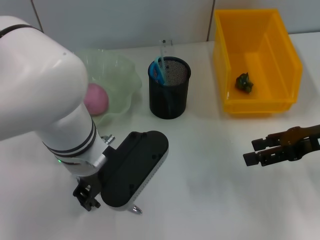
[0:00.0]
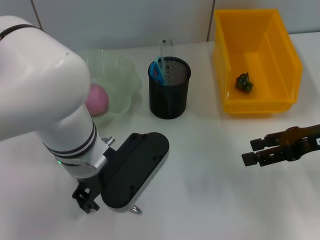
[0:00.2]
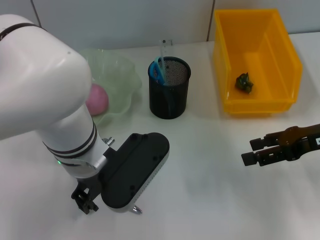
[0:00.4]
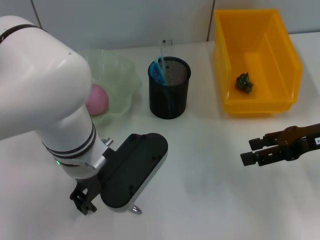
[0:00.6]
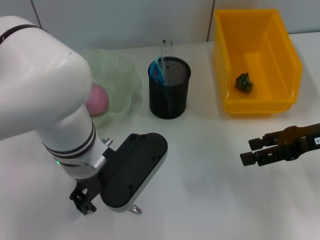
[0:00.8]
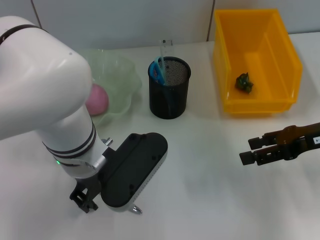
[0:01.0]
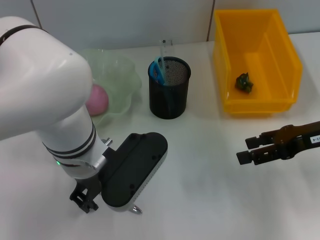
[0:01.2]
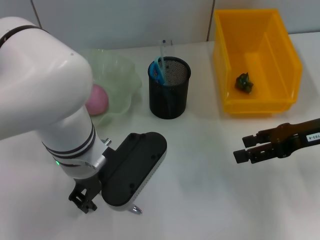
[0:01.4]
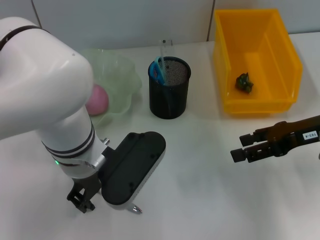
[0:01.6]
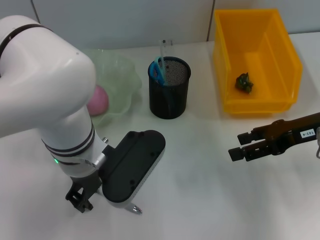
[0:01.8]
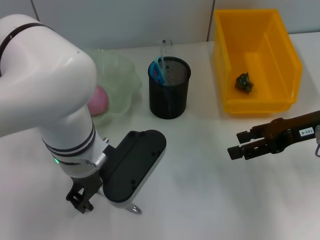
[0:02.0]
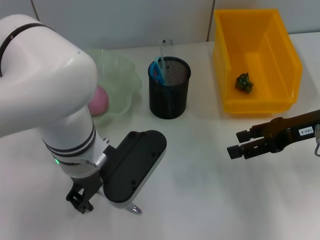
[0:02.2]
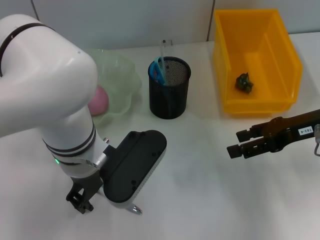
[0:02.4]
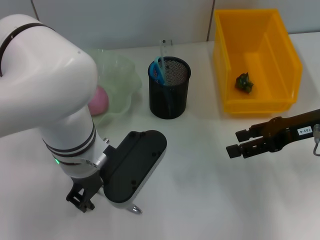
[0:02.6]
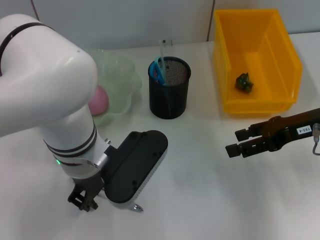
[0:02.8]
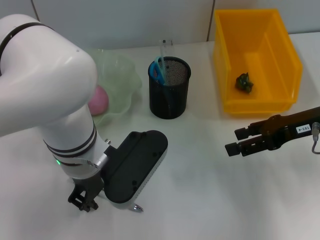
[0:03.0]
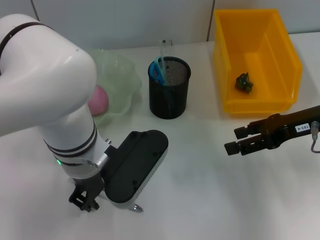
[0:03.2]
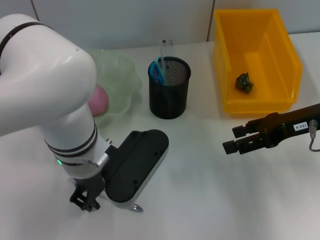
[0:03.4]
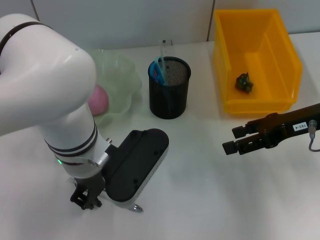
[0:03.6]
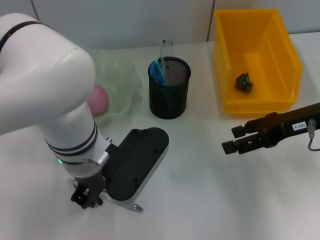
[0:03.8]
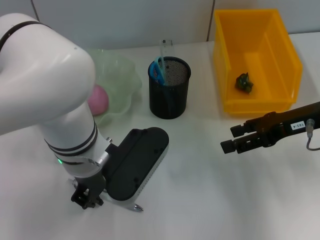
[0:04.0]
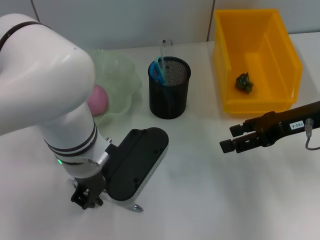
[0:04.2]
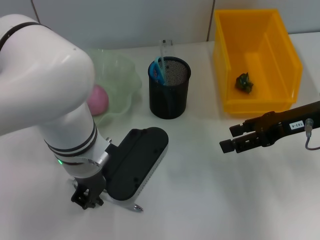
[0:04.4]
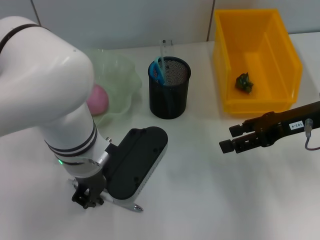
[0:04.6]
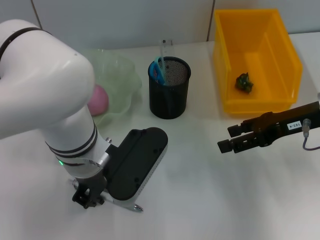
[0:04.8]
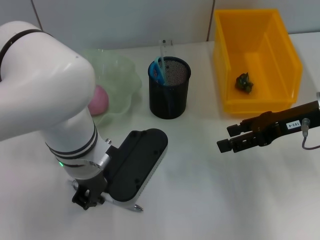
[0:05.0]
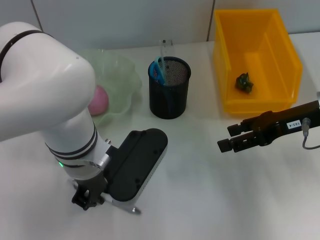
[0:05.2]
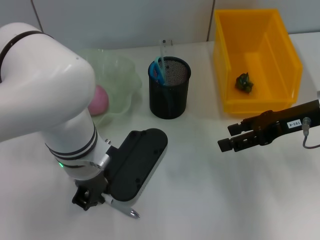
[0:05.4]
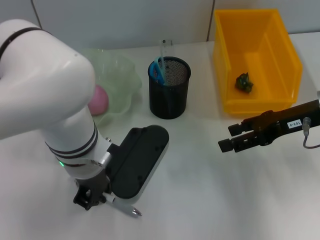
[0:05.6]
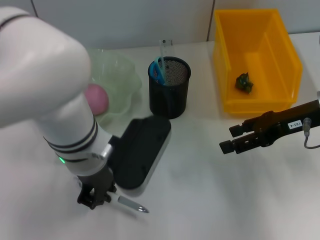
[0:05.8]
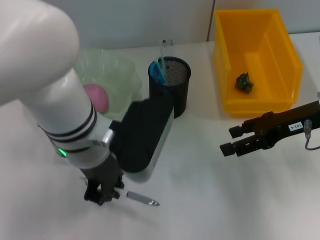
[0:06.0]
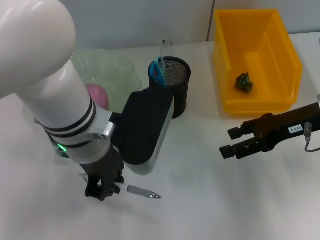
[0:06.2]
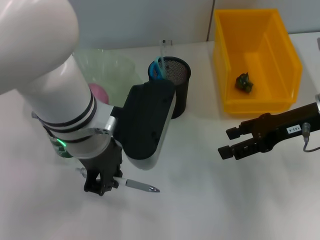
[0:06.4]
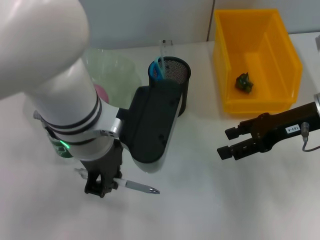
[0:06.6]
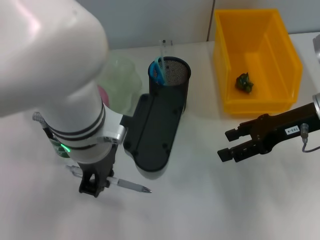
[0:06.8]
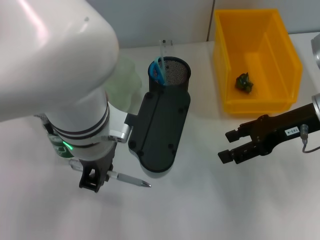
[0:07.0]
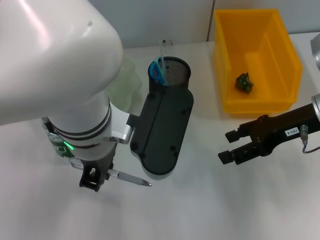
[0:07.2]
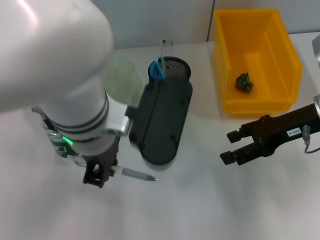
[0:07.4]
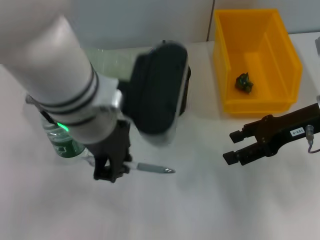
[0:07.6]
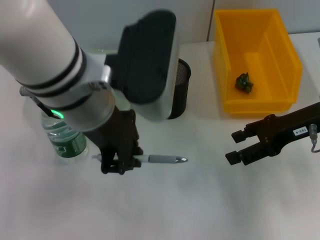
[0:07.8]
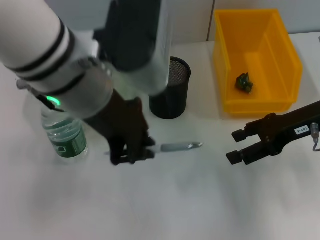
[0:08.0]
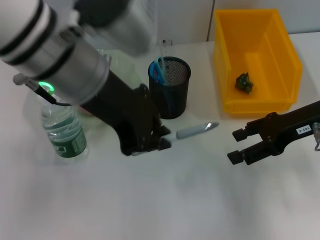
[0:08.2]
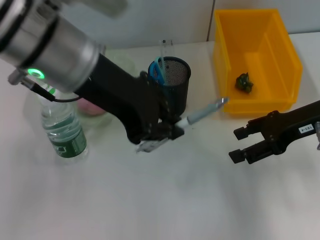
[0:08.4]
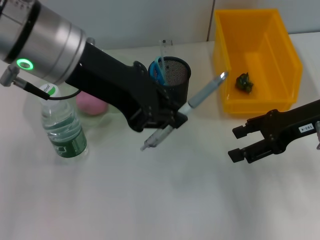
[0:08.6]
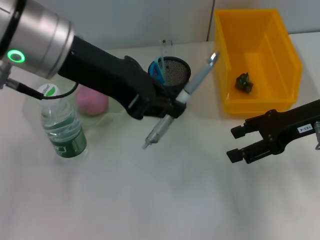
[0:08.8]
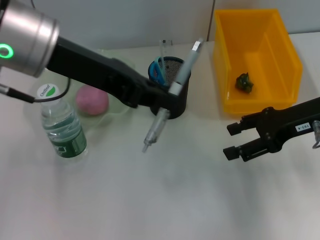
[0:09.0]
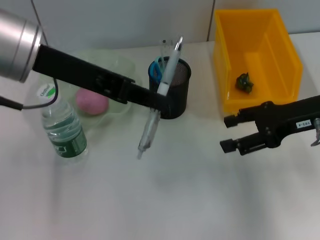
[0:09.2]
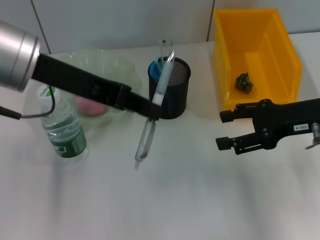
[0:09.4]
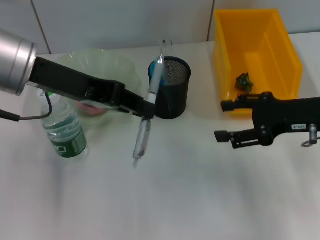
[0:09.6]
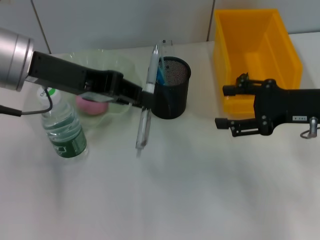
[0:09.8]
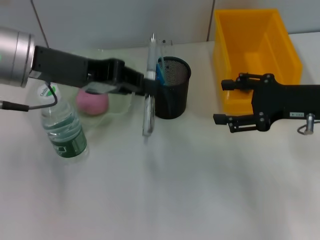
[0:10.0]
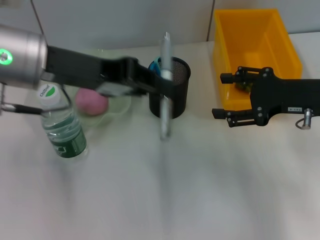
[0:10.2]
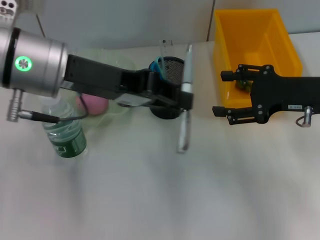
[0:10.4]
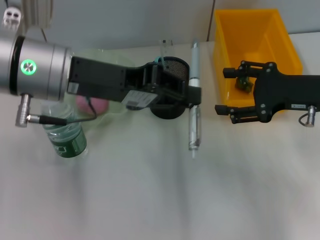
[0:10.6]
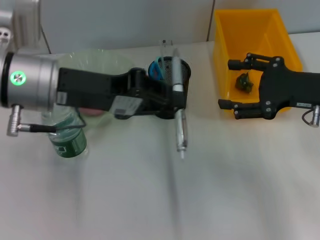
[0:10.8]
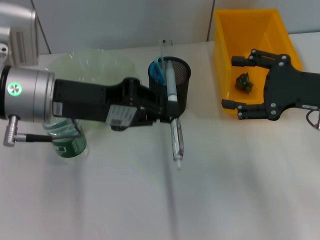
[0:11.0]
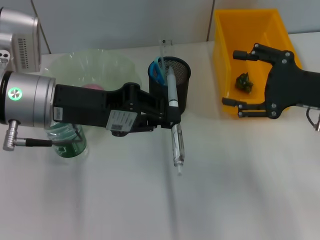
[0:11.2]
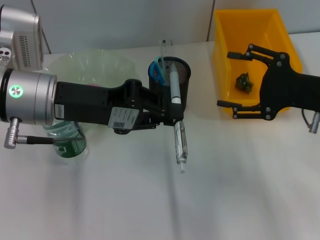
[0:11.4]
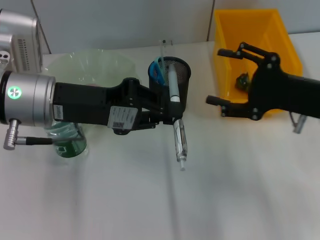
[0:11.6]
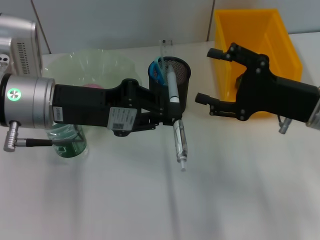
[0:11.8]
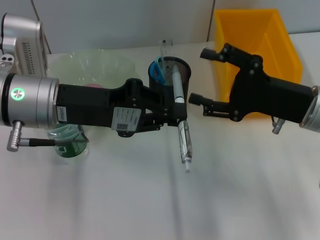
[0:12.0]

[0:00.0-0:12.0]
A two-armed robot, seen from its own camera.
Step, 0:00.0 to 0:04.2: Grab the gray spring-action pen with the left hand.
0:00.0 to 0:01.6: The grippers stay close to where they were, moving slightly.
0:01.6 to 0:03.0: Neither gripper changes place.
0:03.0 to 0:04.4: Neither gripper changes place.
0:04.4 to 0:06.0: The grippers stay close to where they were, moving slightly.
0:06.0 to 0:07.6: The left gripper is displaced upward by roughly 5 cm.
0:07.6 to 0:09.0: The left gripper is displaced to the left and upward by approximately 10 cm.
0:10.4 to 0:12.0: The left gripper goes some 5 cm downward.

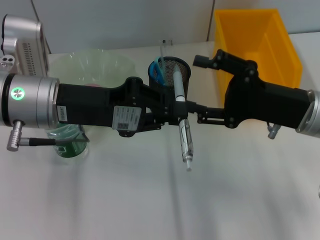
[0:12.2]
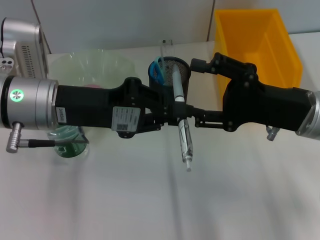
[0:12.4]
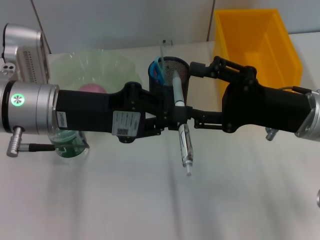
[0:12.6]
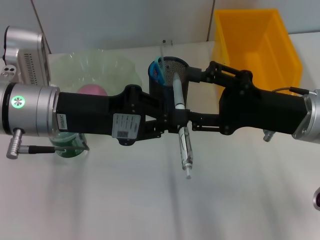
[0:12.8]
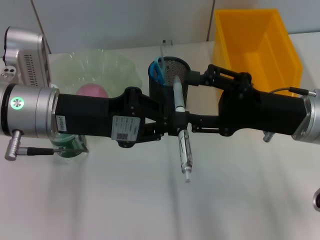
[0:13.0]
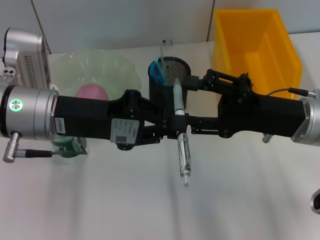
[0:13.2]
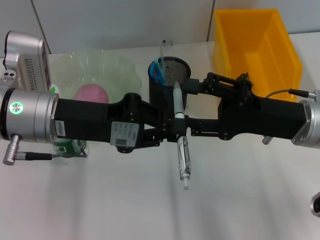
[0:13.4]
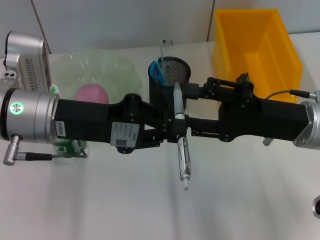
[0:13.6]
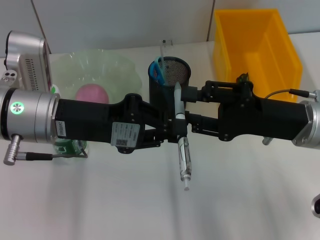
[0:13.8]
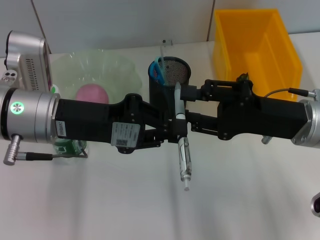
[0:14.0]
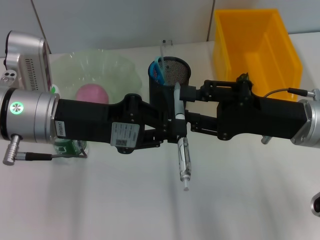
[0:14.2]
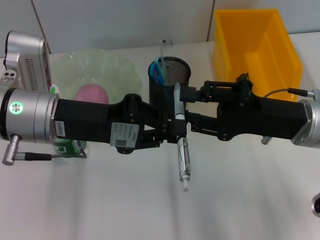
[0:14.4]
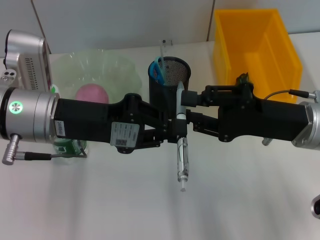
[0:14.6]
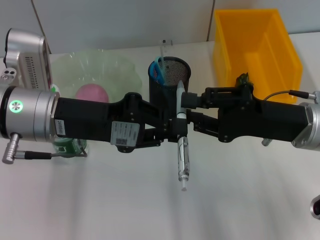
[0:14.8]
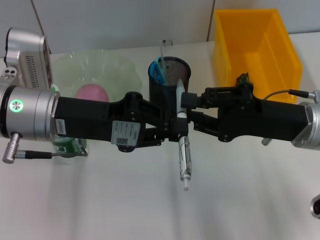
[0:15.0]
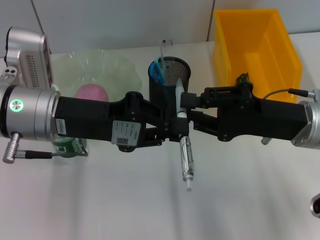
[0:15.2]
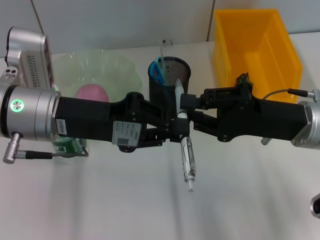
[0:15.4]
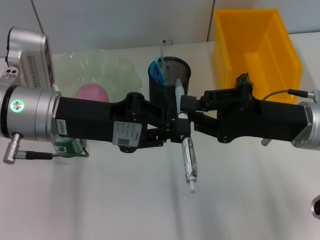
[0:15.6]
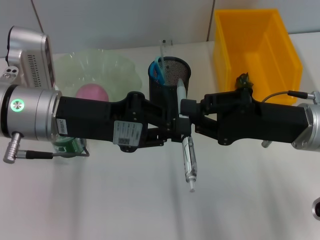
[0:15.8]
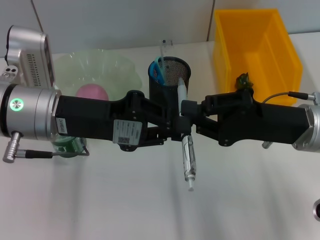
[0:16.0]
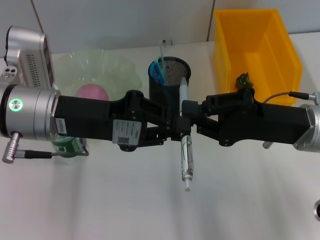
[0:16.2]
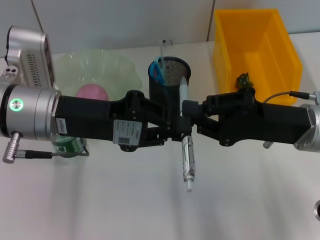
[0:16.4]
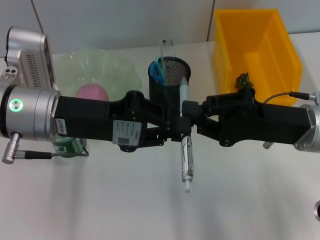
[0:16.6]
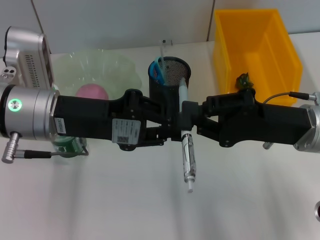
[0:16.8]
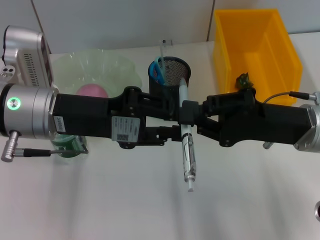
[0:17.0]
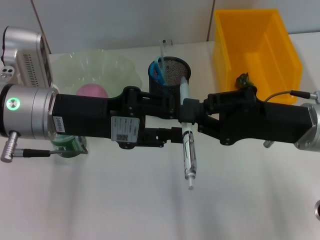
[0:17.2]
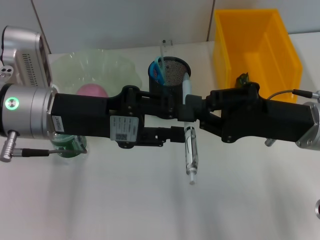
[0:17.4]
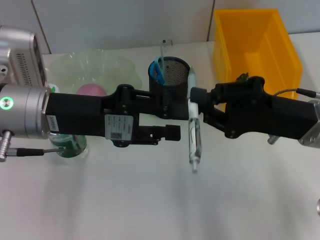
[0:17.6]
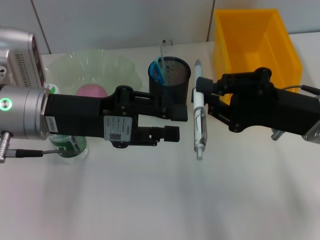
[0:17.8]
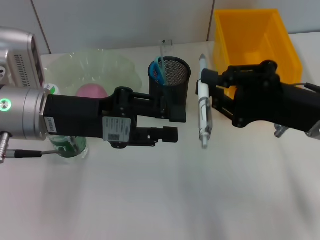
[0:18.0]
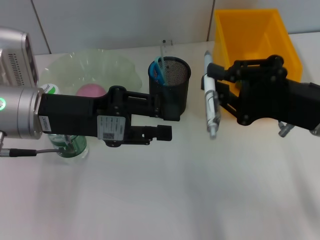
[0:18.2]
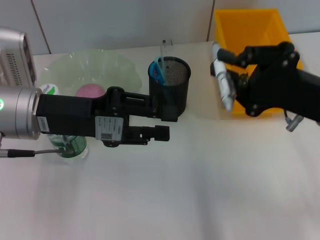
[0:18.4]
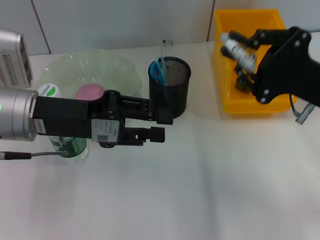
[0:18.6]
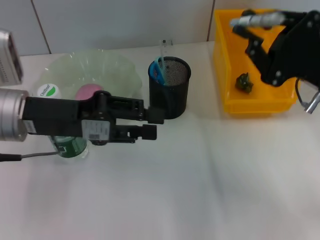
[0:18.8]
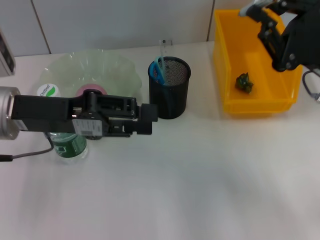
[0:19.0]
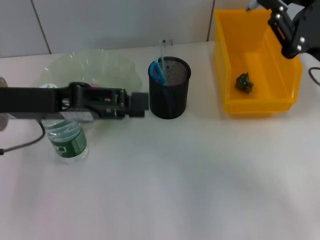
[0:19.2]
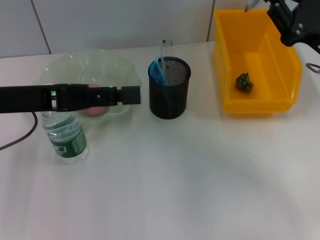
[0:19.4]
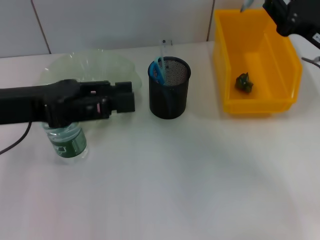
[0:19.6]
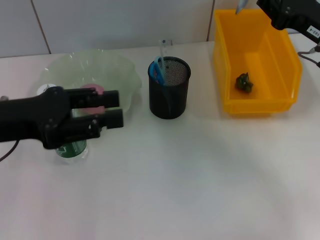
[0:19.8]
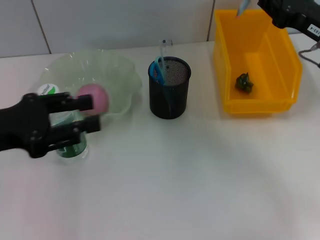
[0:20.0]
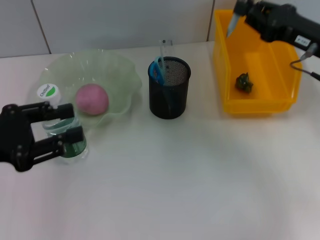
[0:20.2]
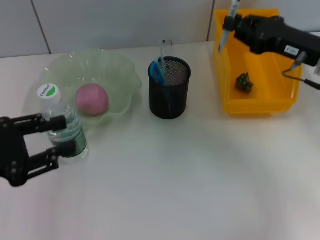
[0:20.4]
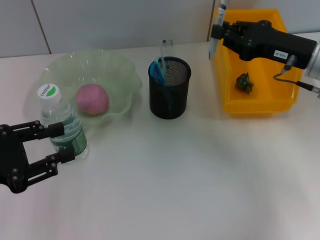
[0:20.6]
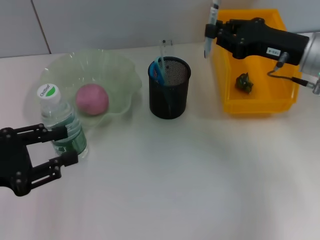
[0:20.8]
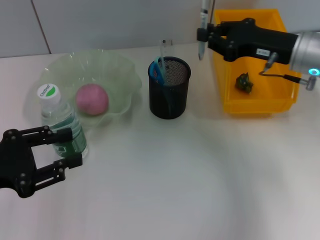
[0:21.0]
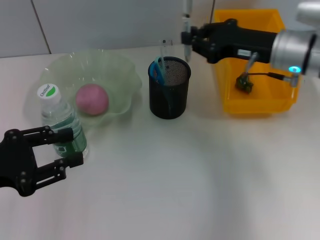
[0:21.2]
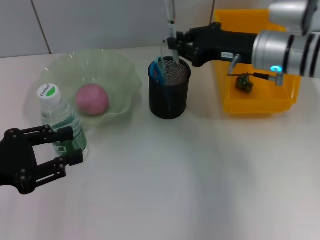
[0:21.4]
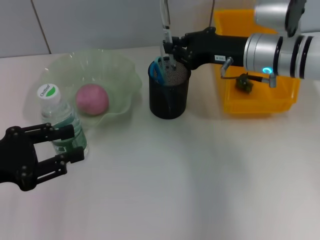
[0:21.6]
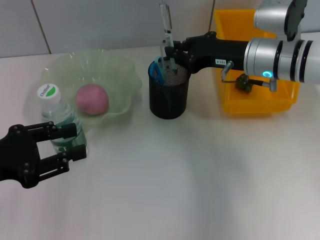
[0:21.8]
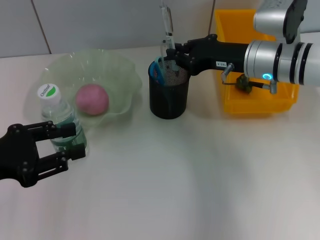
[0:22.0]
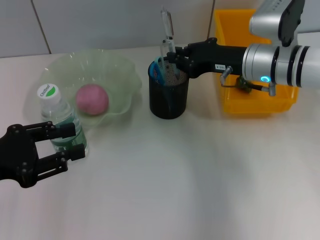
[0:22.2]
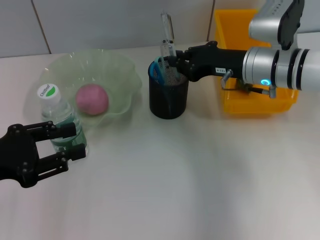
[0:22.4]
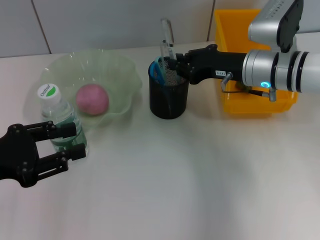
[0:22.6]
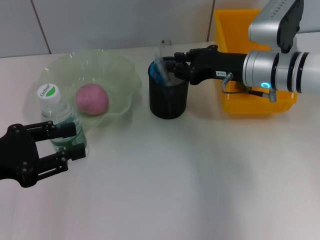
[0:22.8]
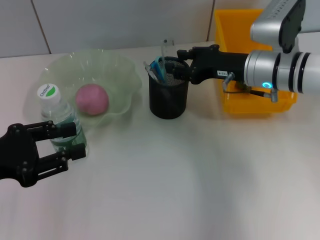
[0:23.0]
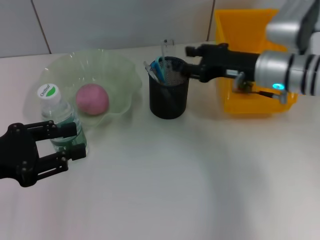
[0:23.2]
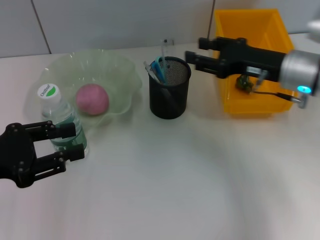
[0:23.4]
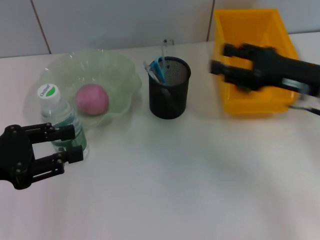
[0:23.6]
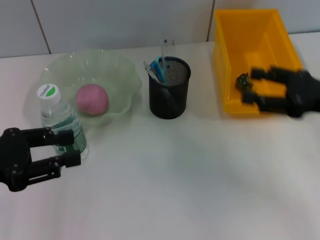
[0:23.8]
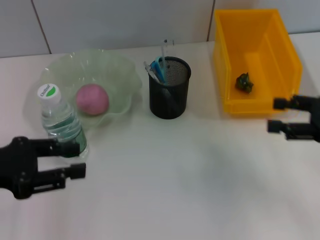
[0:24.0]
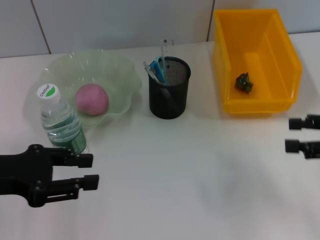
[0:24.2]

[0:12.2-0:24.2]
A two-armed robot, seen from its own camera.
Step, 0:12.2 to 0:16.8: Pass the gray spring-action pen from the left hand to the right hand.
Step, 0:17.0 to 0:22.8: Place the gray spring-action pen into the pen holder with the right hand.
0:13.8 to 0:15.2: The right gripper closes its fingers.
0:15.2 to 0:16.6: Both grippers stay about where they are.
0:16.6 to 0:18.2: The left gripper opens up.
0:18.2 to 0:19.8: The right gripper heads forward, covering approximately 5 cm; the left gripper shifts approximately 5 cm to the left.
0:19.8 to 0:21.2: The left gripper travels downward, to the left and backward by some 10 cm. The right gripper moves to the left, about 5 cm.
0:21.2 to 0:22.6: The grippers move only a little.
0:22.6 to 0:24.2: The right gripper is displaced to the right and backward by approximately 20 cm, and opens up.
